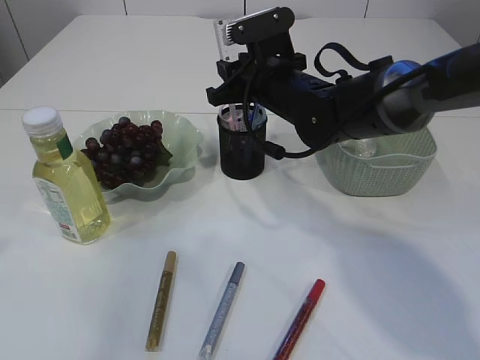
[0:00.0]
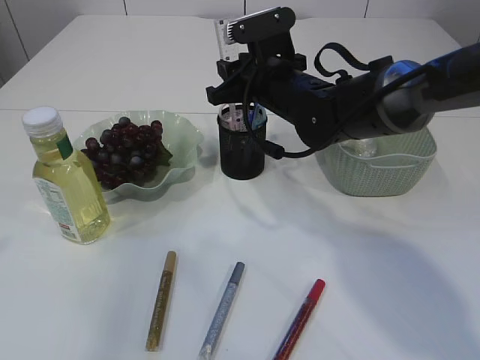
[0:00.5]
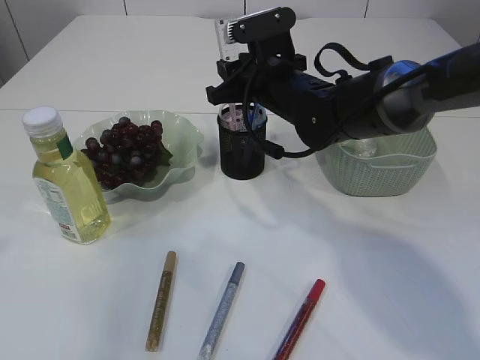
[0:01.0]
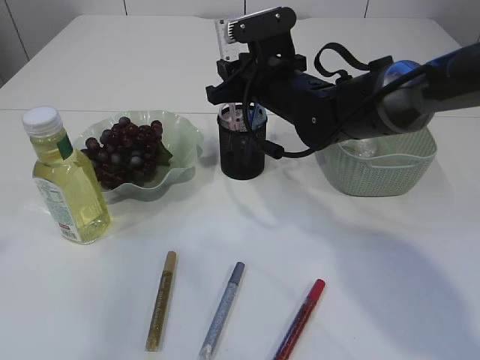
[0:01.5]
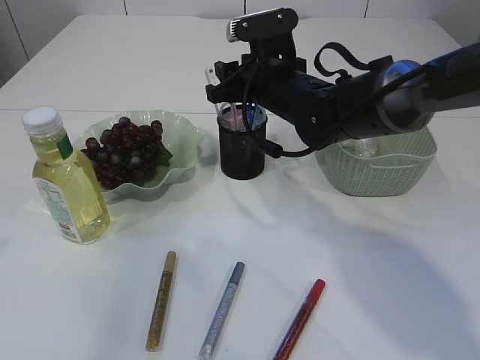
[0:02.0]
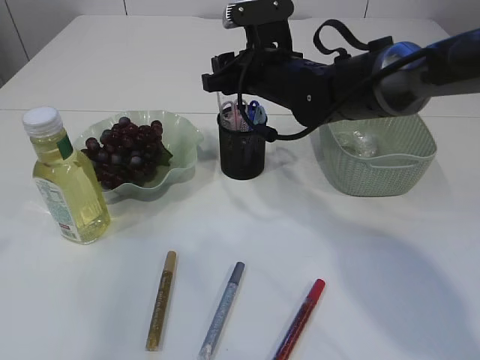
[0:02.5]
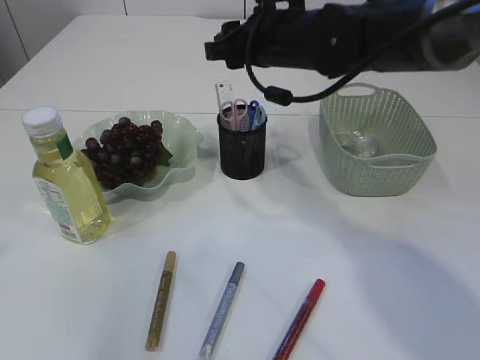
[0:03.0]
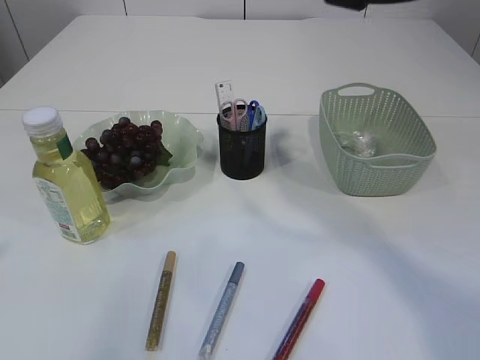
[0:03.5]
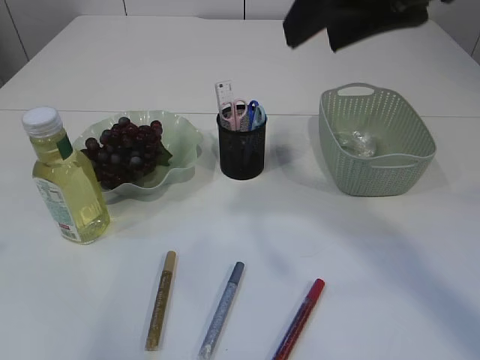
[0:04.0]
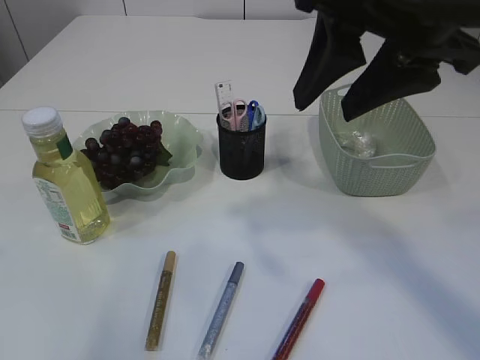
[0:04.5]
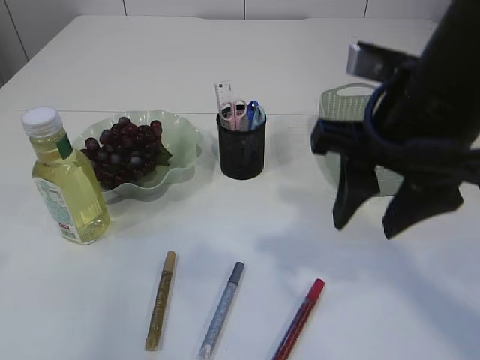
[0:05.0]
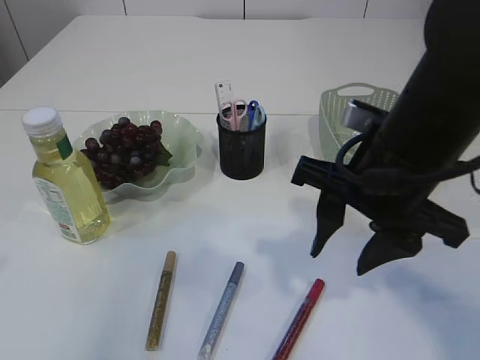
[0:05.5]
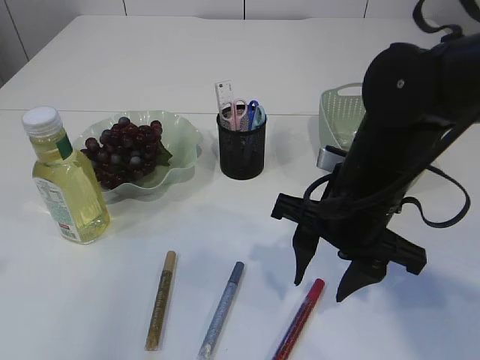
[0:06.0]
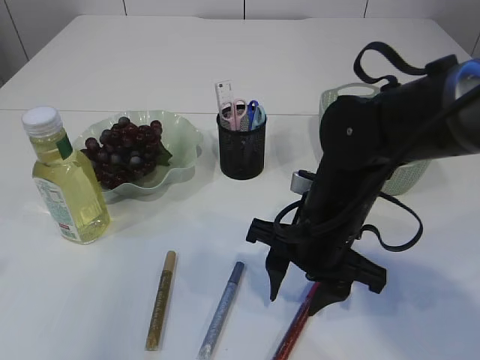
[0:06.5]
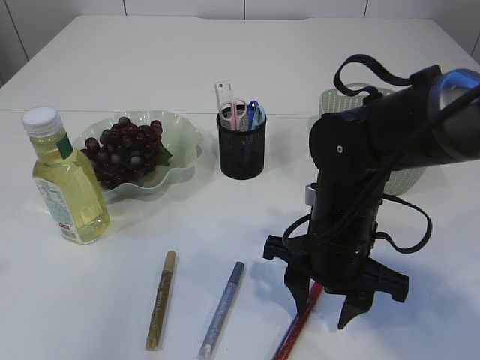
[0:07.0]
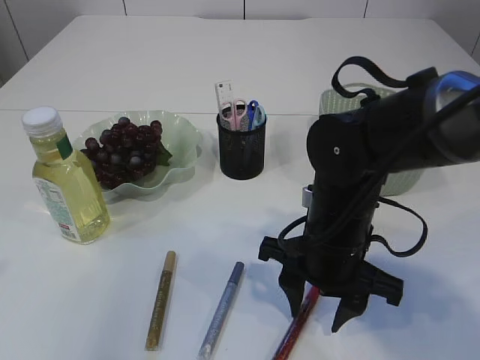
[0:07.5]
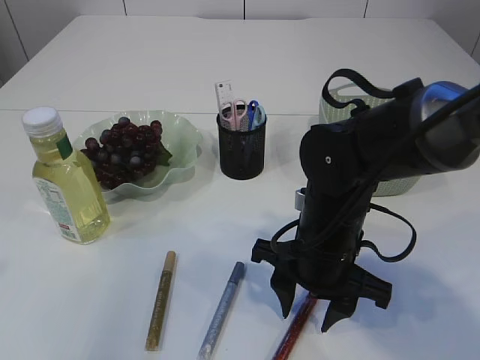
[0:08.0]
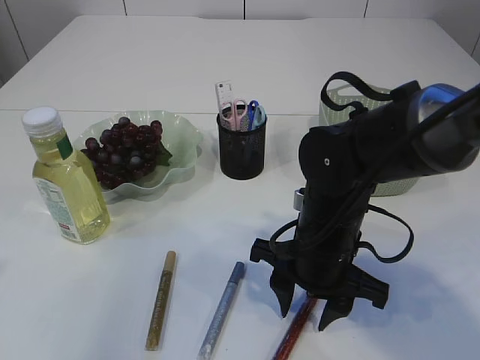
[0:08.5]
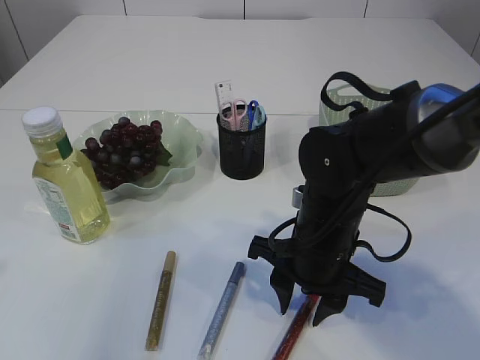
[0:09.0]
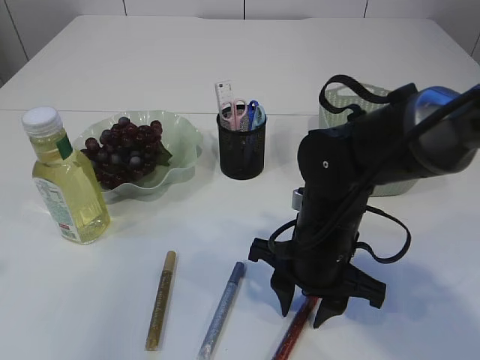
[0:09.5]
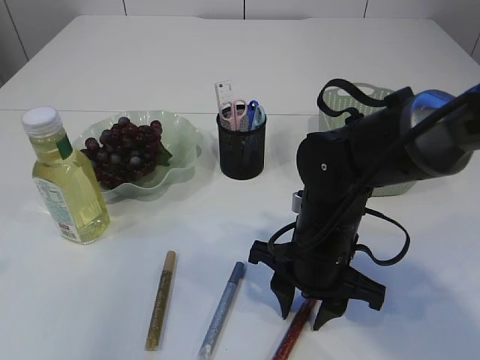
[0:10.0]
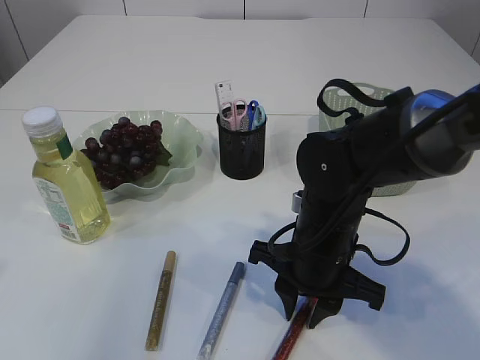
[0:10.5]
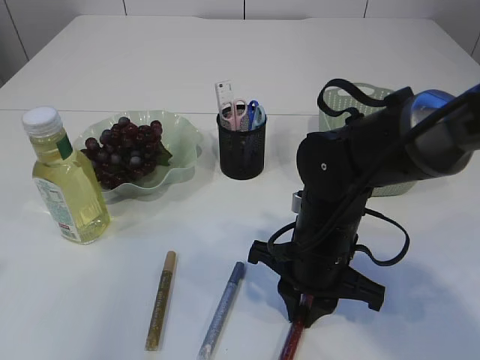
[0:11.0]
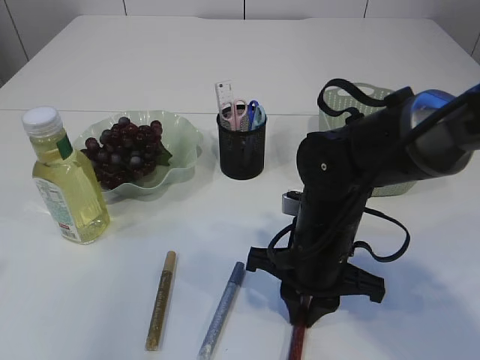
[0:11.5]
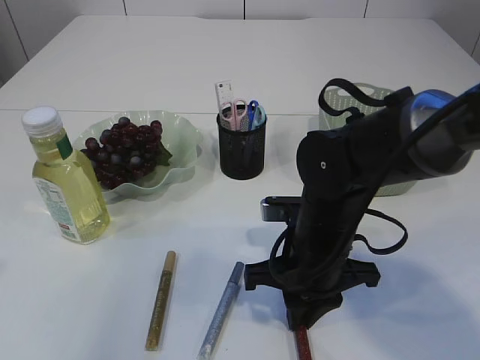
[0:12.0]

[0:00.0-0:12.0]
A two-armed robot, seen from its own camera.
Step, 0:00.0 to 0:02.5: Place the ruler into the pen holder.
0:00.0 to 0:02.0: Both grippers stay about where they are.
0:02.0 to 0:04.0: The right gripper heads upward and backward, covering some 25 cm.
0:04.0 to 0:06.0: The right gripper is displaced downward by about 20 cm.
0:06.0 to 0:08.0: The right gripper travels downward by roughly 5 cm.
0:08.0 to 0:10.0: The two grippers keep their place.
0:10.0 to 0:12.0: The right gripper closes.

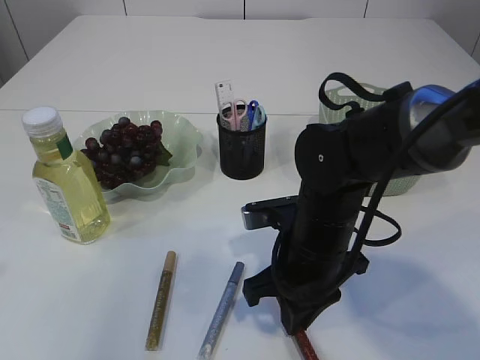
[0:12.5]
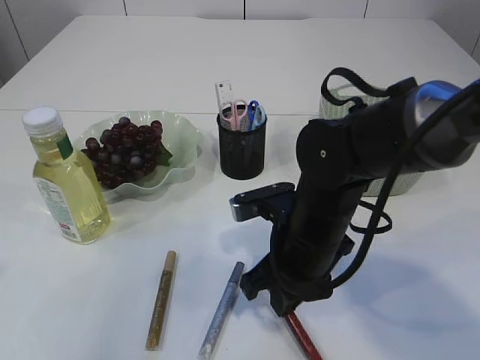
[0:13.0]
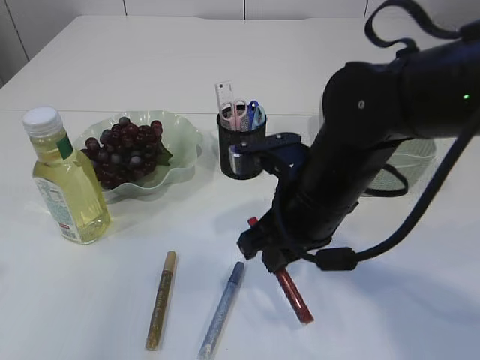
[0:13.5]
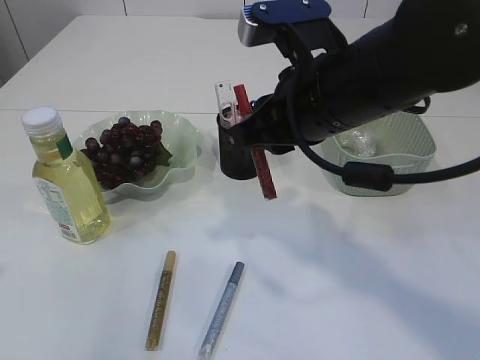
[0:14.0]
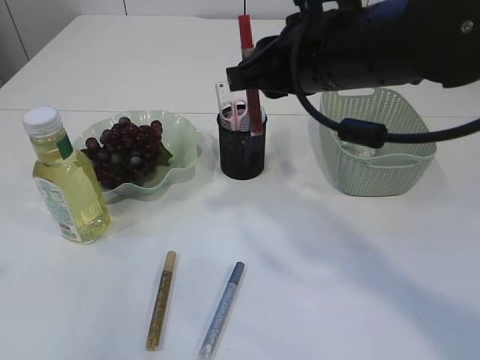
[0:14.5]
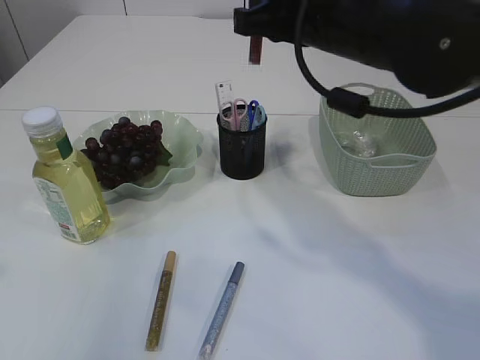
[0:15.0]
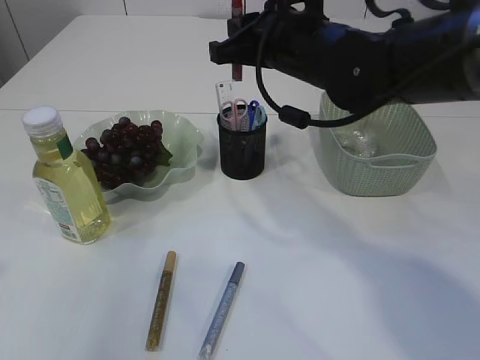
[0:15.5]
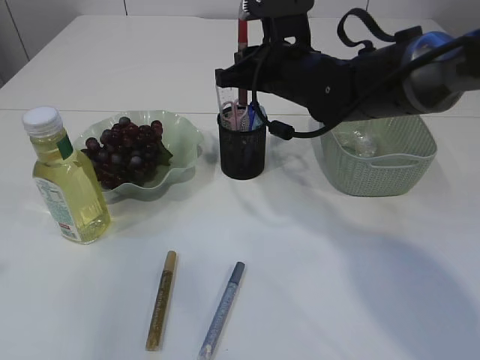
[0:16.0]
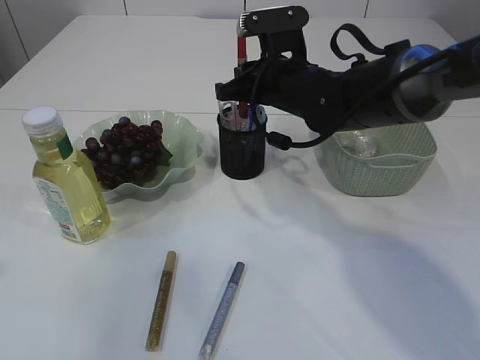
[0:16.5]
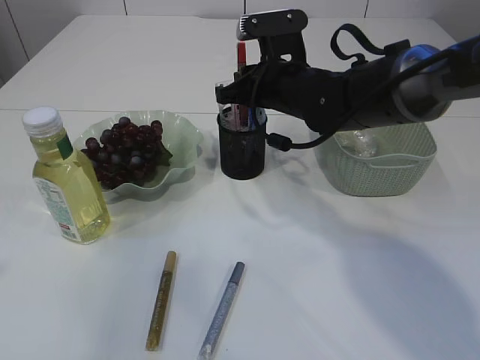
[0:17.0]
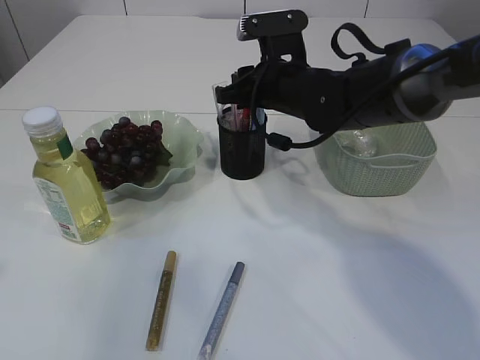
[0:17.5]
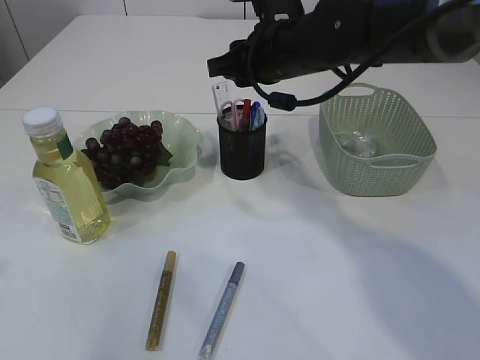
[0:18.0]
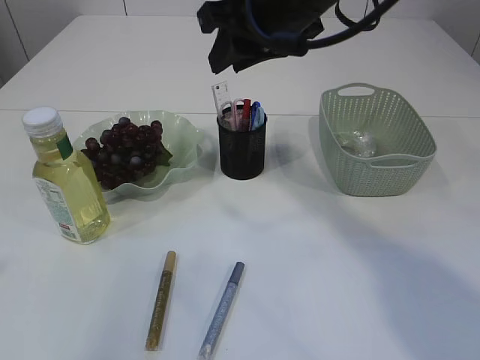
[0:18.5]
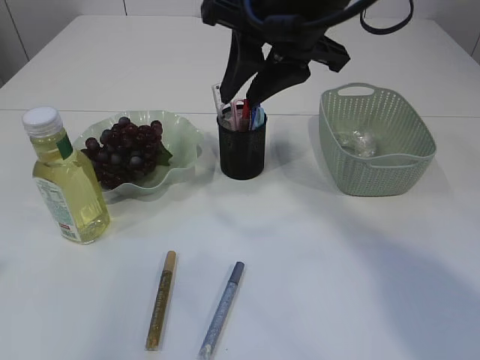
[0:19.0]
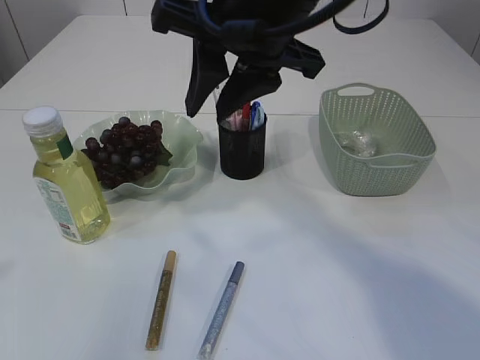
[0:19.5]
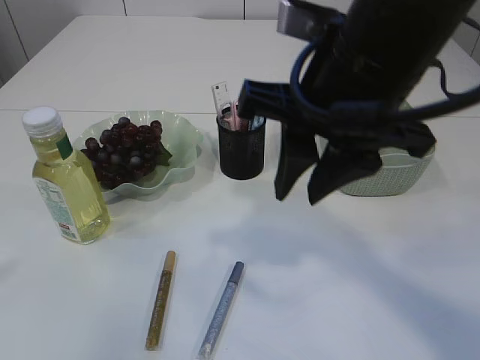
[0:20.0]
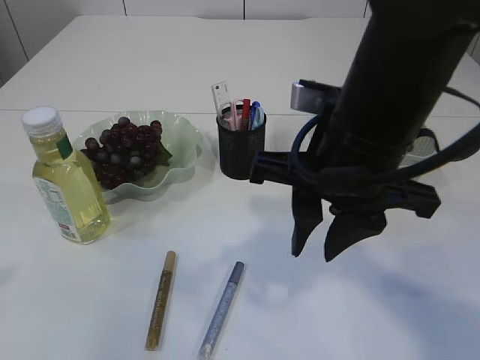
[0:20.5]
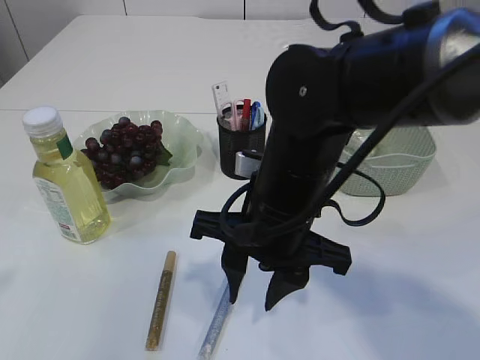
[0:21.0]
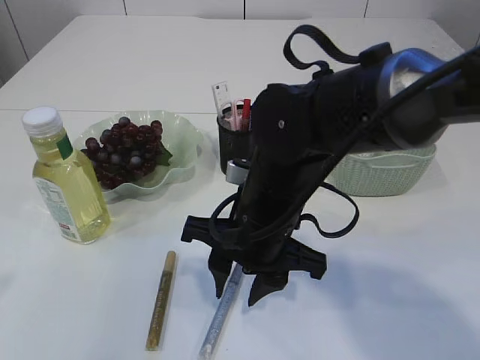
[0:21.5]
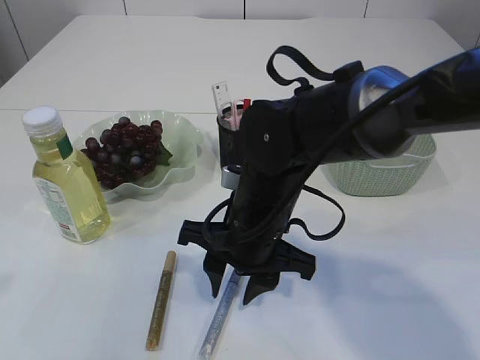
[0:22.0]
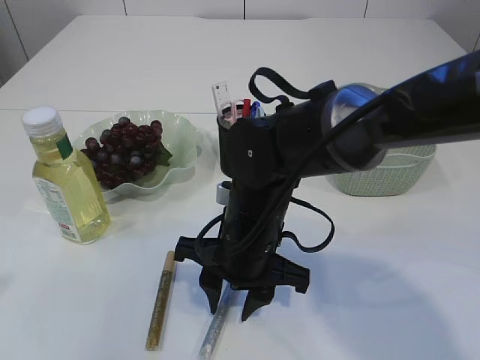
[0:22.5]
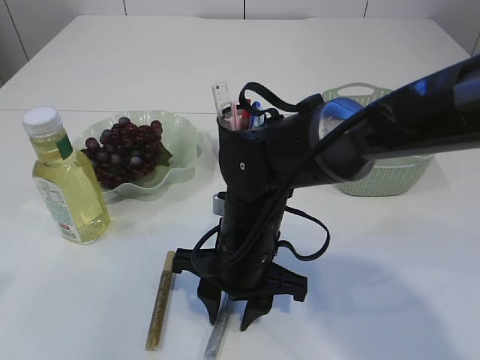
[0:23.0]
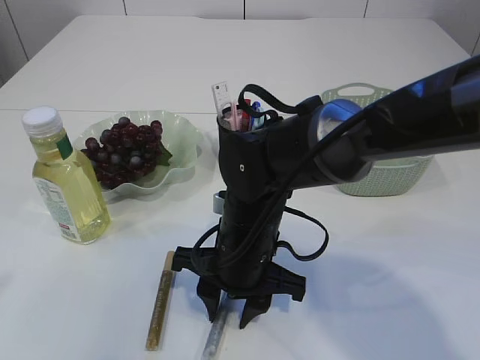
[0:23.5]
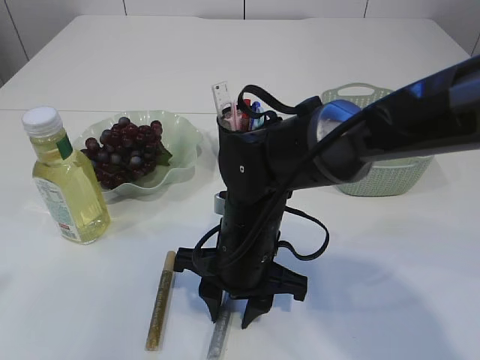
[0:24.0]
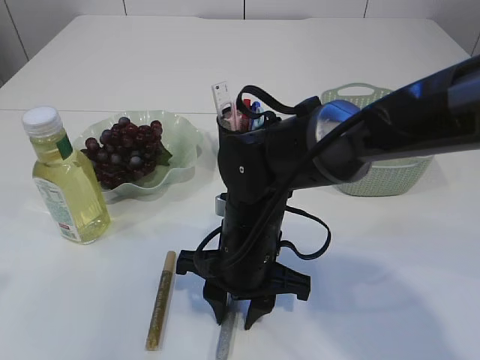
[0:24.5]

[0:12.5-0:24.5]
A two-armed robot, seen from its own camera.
Step, 0:14.0 to 0:18.0: place the red glue into the pen holder.
0:12.5 to 0:14.5: The right gripper moves upward, roughly 20 cm.
0:14.5 to 0:16.5: The right gripper travels forward and downward by approximately 15 cm.
0:16.5 to 0:18.5: The right gripper travels upward and backward by approximately 15 cm.
0:18.5 to 0:20.5: The right gripper goes about 15 cm backward and downward.
0:20.5 to 0:22.5: The right gripper is displaced downward and to the left by some 15 cm.
0:22.5 to 0:24.5: The grippers stay close to where they were, moving slightly.

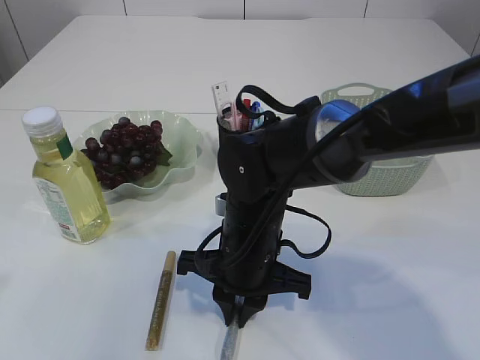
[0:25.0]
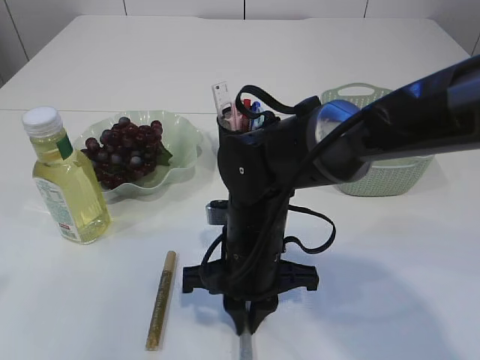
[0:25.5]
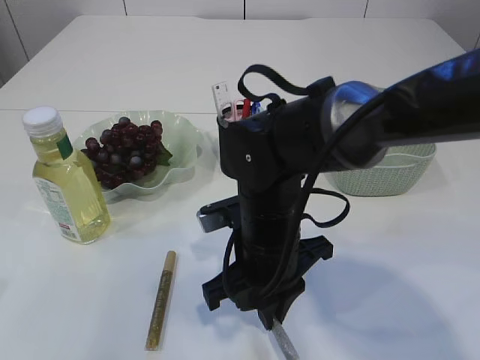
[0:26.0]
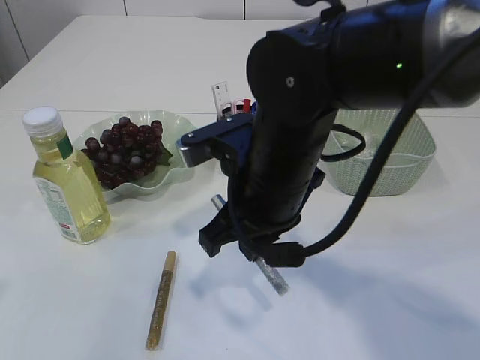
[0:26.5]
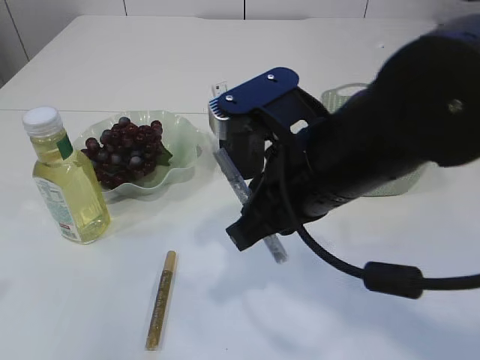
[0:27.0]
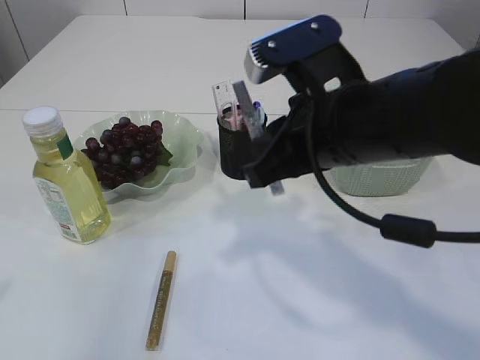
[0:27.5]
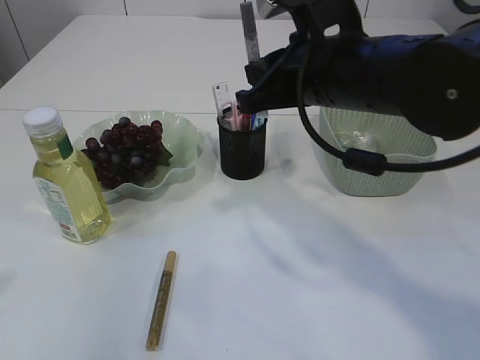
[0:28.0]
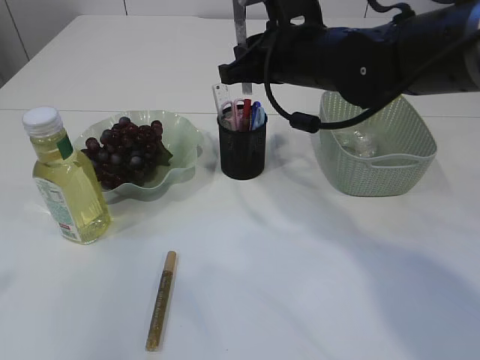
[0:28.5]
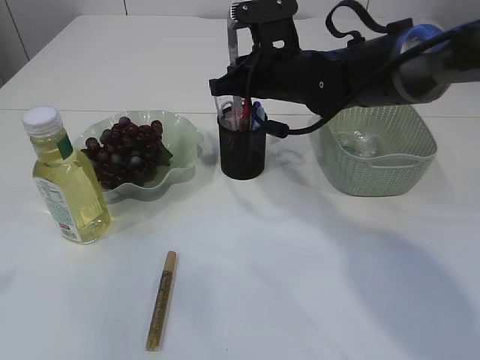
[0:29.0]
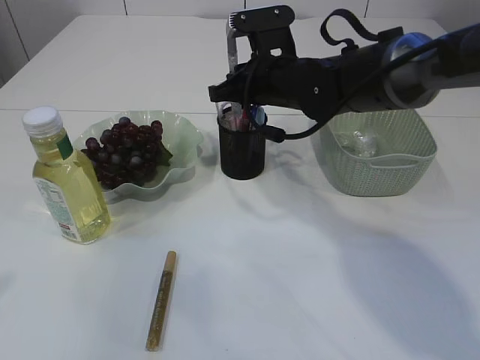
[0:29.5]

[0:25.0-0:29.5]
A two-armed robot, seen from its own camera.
0:25.0 to 0:27.0: The right gripper heads upward and to the right, covering about 15 cm.
0:27.0 to 0:29.5: The right gripper is displaced forward by some 20 cm.
